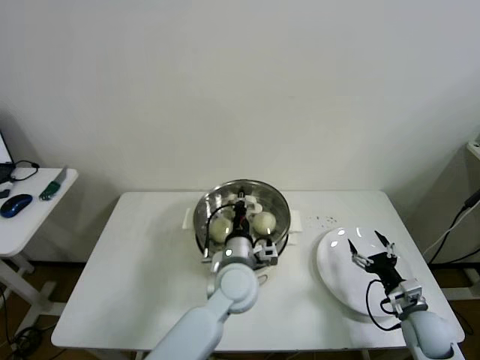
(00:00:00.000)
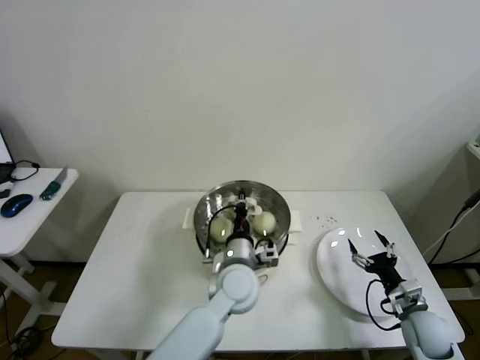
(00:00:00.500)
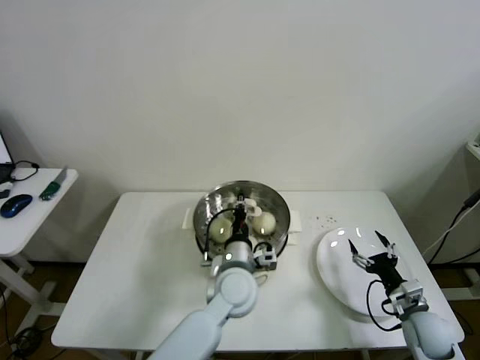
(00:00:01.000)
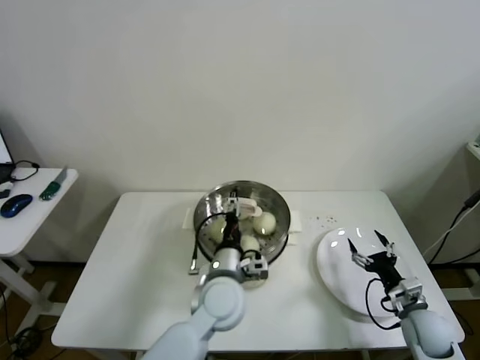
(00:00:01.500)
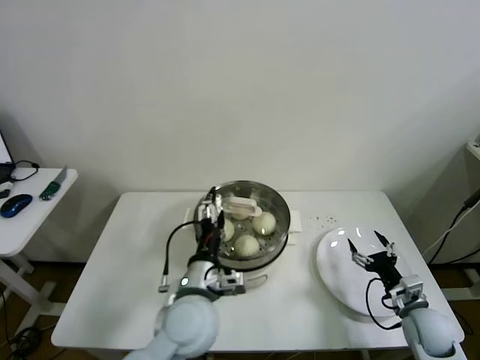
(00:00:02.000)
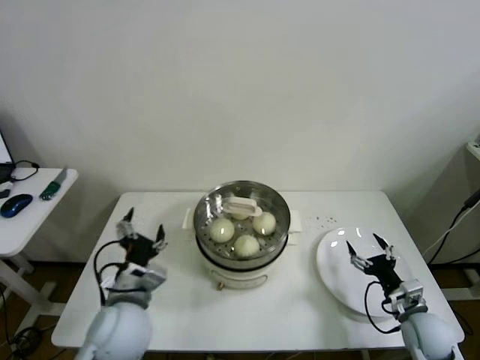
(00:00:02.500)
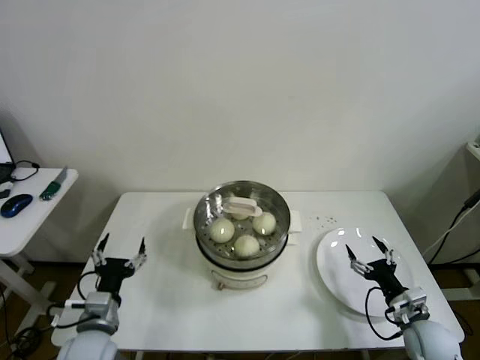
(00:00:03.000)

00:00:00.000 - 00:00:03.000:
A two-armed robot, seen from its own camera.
00:00:00.000 - 00:00:01.500: The left gripper opens up.
00:00:01.500 - 00:00:03.000: The left gripper moves to the left, some 25 cm.

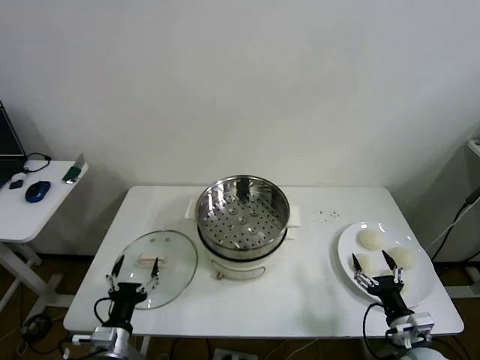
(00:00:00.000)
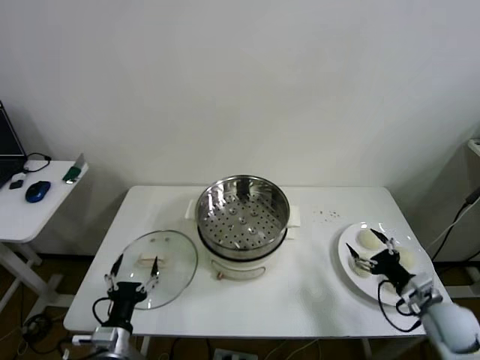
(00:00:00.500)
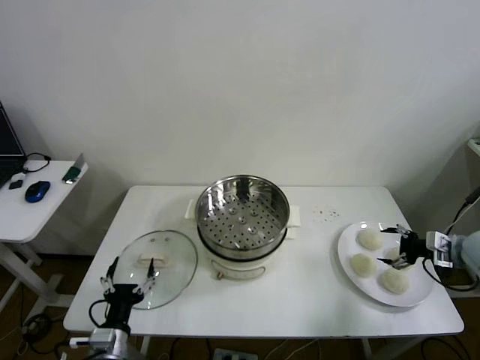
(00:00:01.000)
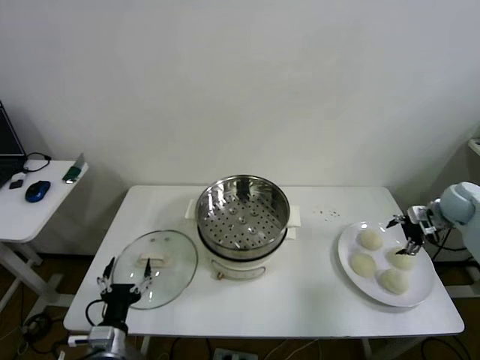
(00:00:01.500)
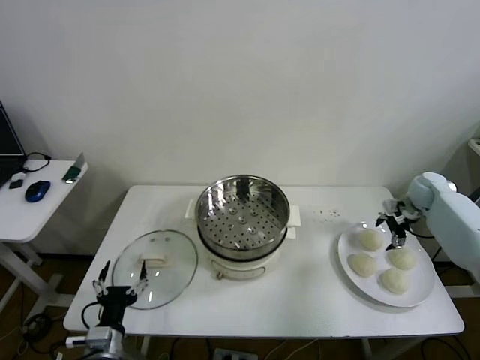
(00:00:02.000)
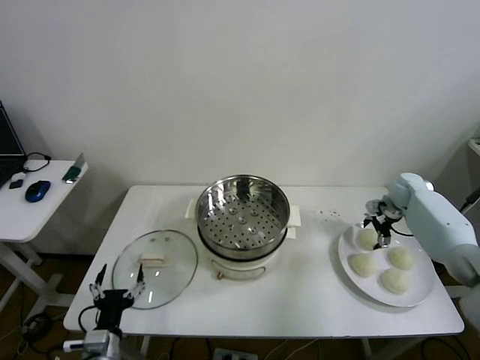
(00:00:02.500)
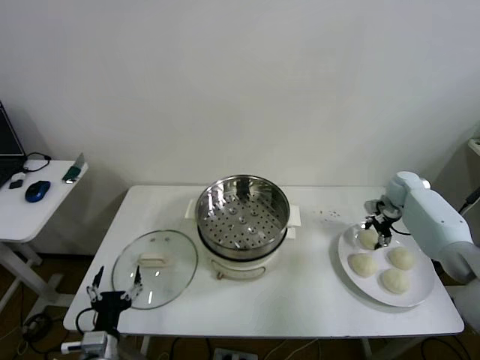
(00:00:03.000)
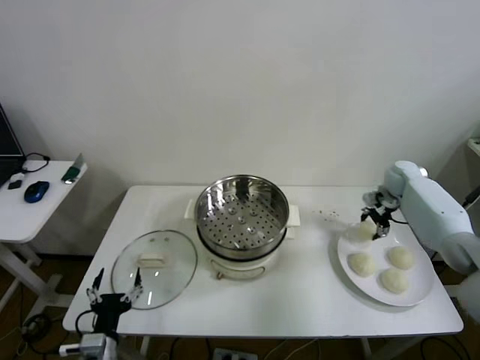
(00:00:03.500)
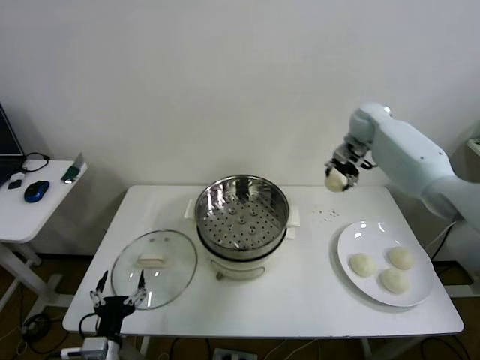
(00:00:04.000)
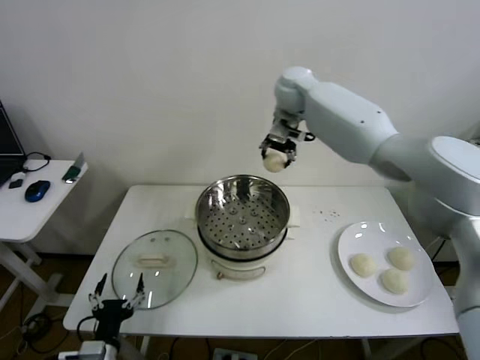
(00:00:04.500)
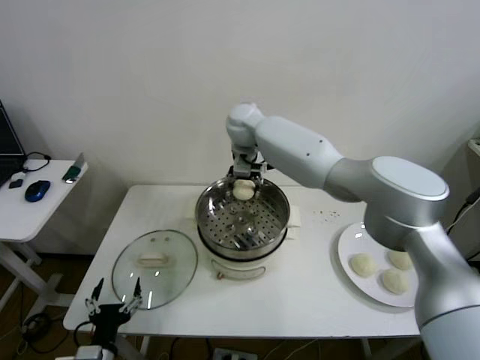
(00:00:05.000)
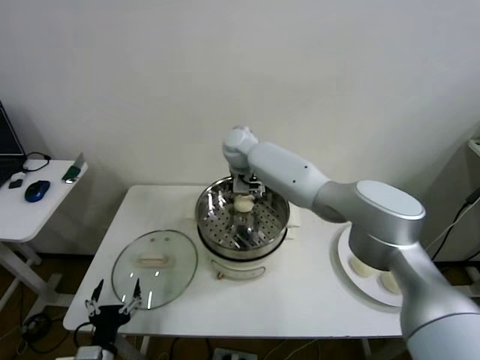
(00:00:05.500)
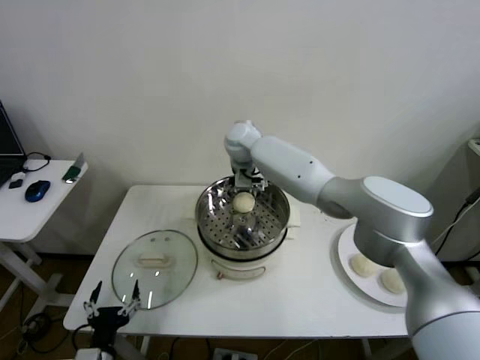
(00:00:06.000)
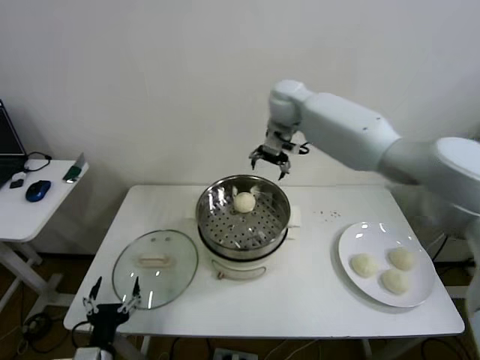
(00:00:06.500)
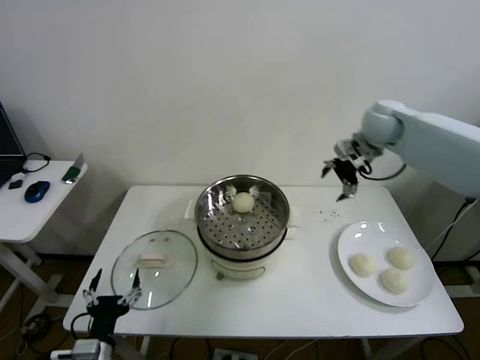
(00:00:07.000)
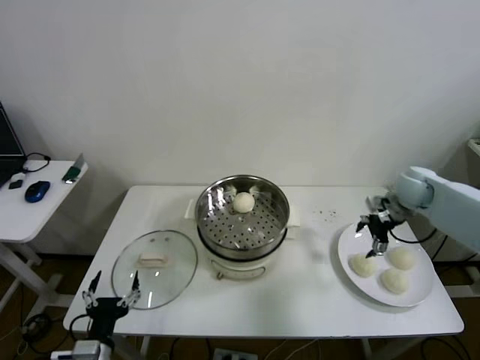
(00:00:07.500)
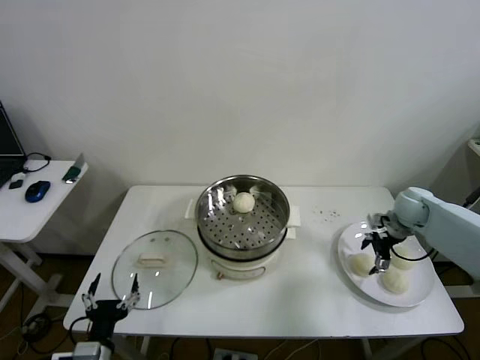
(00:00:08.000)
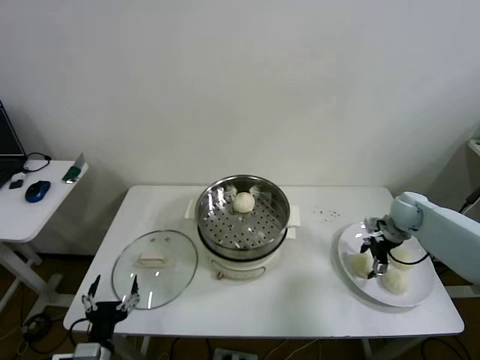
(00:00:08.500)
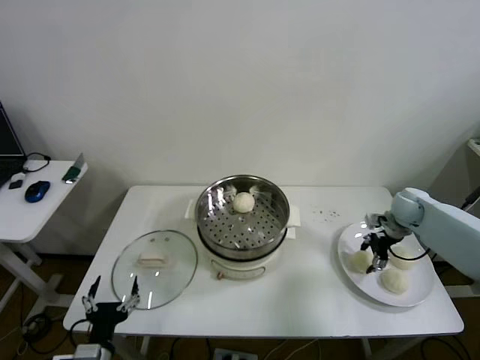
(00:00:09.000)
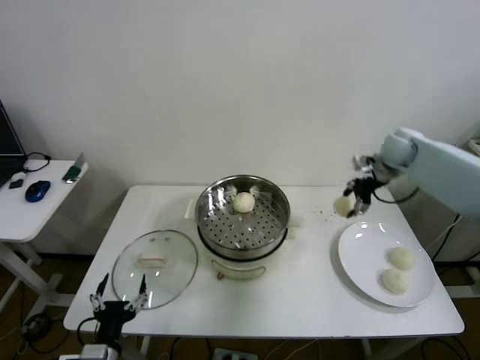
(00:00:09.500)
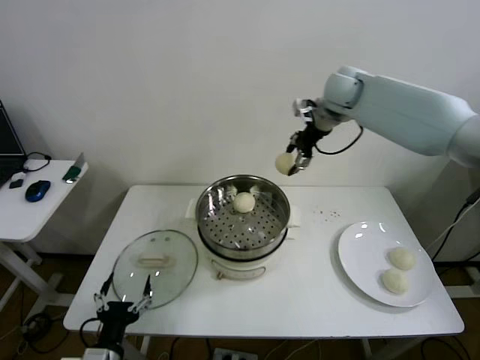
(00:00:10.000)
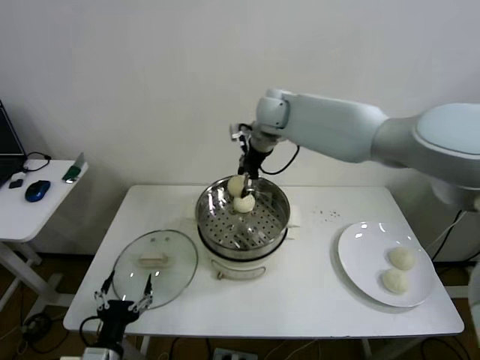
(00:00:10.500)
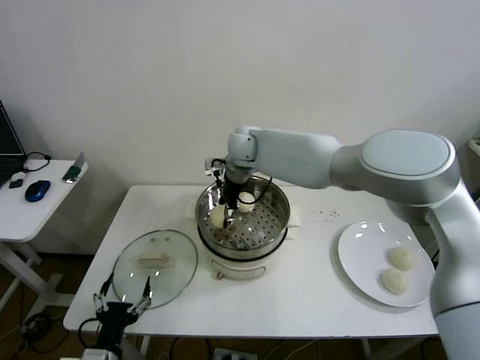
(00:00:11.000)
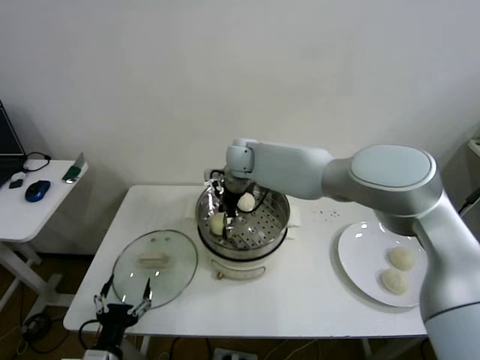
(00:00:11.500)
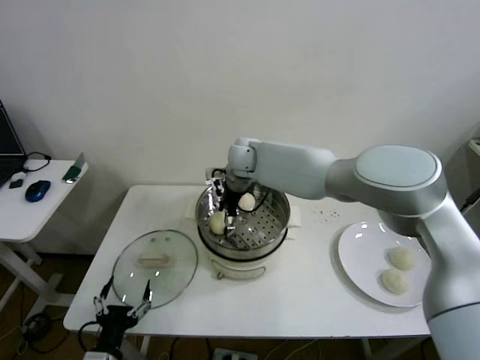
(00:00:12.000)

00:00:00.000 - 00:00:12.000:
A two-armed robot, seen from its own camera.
Step, 00:00:00.000 - 00:00:03.000: Grasp the baozi in the plate with right gripper.
Step, 00:00:03.500 - 00:00:05.500: Place the baozi on the steamer with right gripper.
Step, 00:00:06.000 - 00:00:08.500: Grasp the baozi in the plate with right gripper.
00:00:02.000 - 00:00:04.000: The right gripper is displaced to the left, upward and forward by about 30 cm, and closes its fingers.
00:00:04.000 - 00:00:06.000: The right gripper is displaced to the left by some 25 cm, and opens.
00:00:06.000 - 00:00:08.000: The right gripper moves to the right, roughly 40 cm.
00:00:08.000 - 00:00:10.000: The right gripper is displaced upward, to the left and forward by roughly 40 cm, and closes its fingers.
00:00:10.000 - 00:00:12.000: The right gripper goes approximately 25 cm to the left and downward, and opens its fingers.

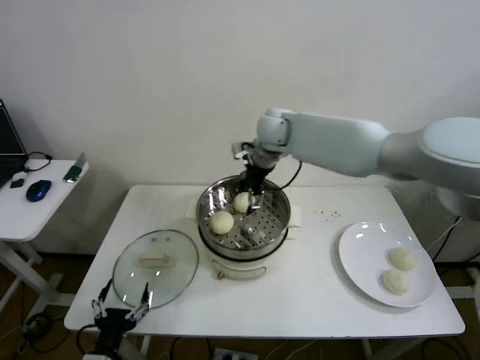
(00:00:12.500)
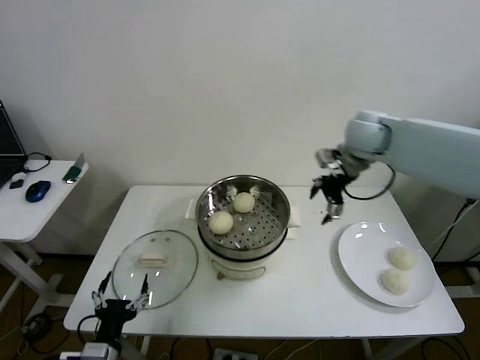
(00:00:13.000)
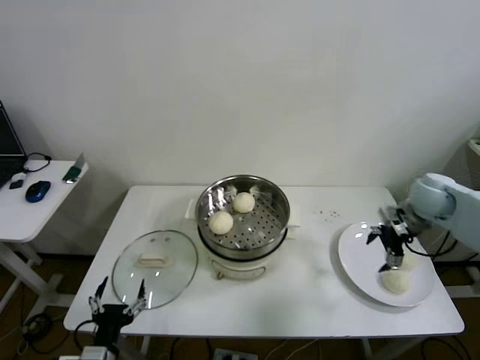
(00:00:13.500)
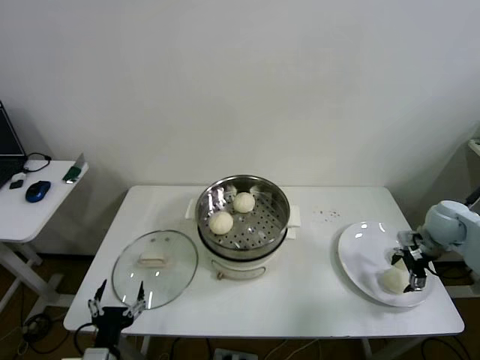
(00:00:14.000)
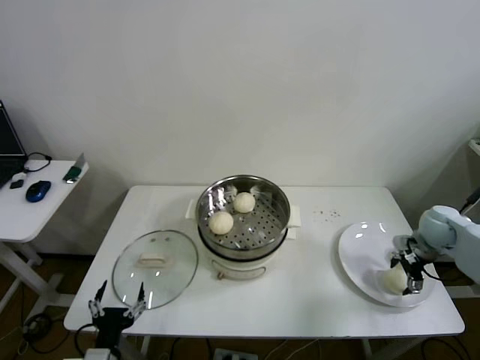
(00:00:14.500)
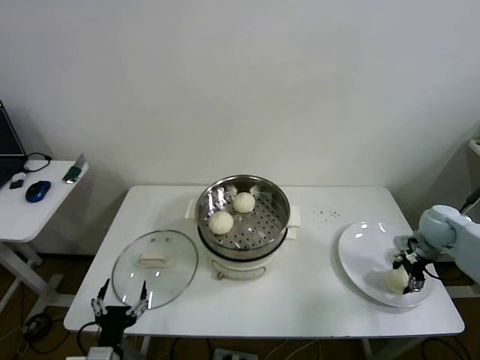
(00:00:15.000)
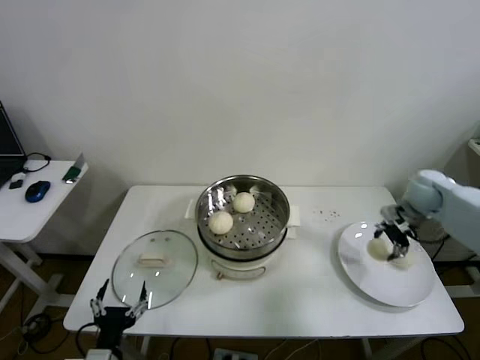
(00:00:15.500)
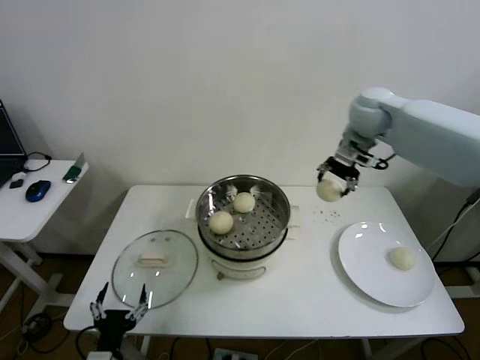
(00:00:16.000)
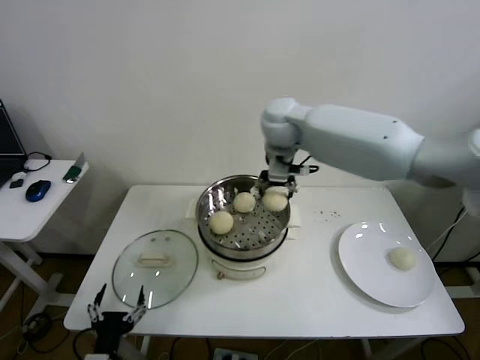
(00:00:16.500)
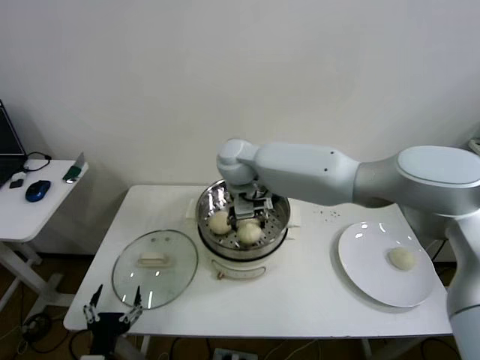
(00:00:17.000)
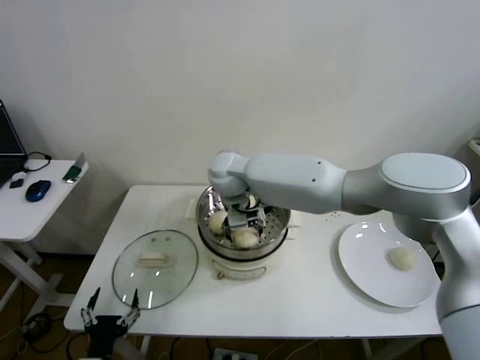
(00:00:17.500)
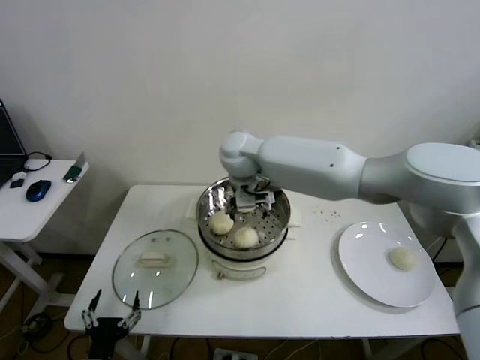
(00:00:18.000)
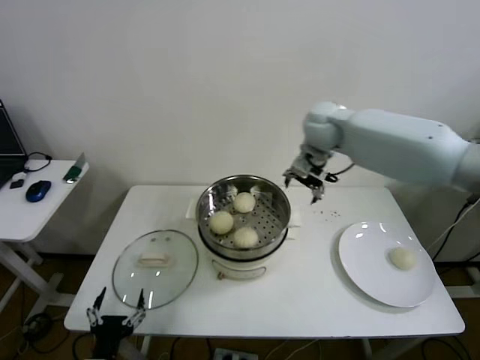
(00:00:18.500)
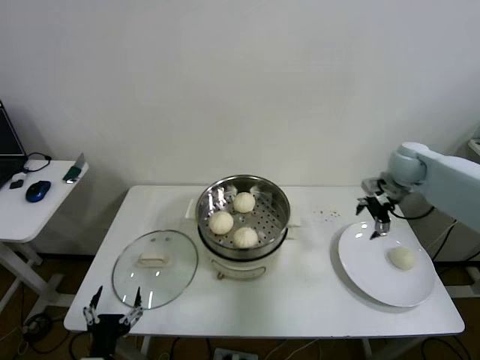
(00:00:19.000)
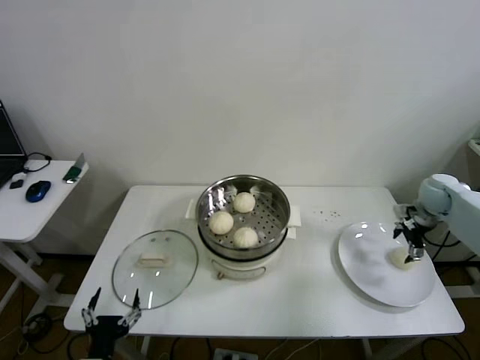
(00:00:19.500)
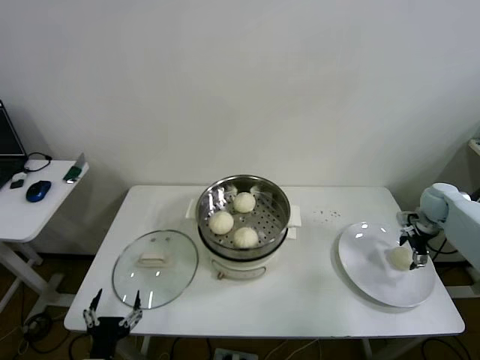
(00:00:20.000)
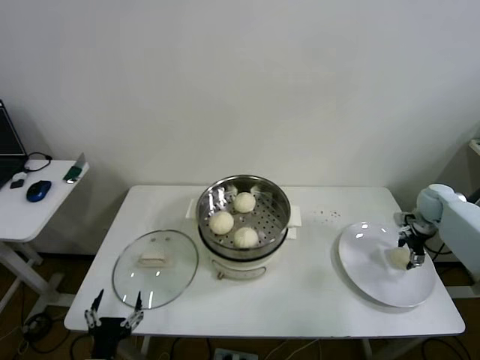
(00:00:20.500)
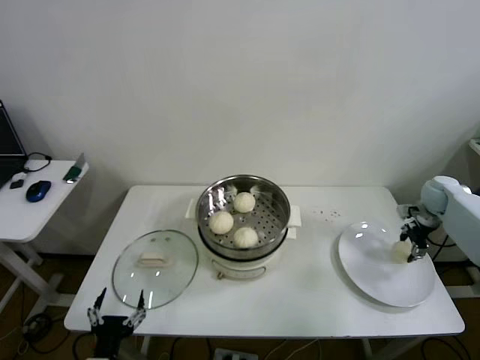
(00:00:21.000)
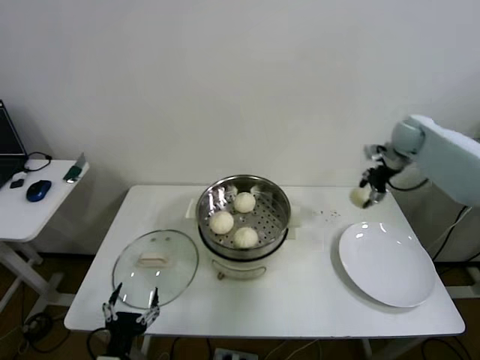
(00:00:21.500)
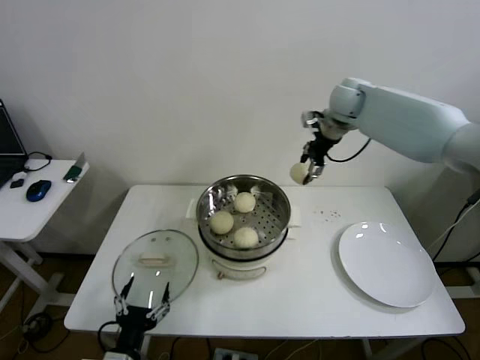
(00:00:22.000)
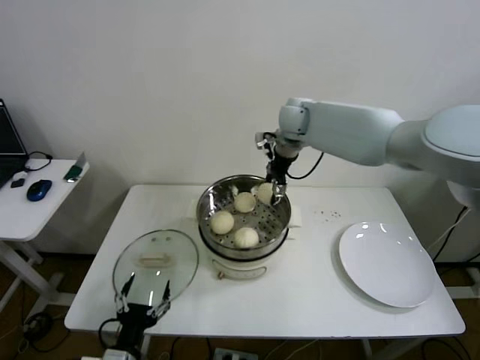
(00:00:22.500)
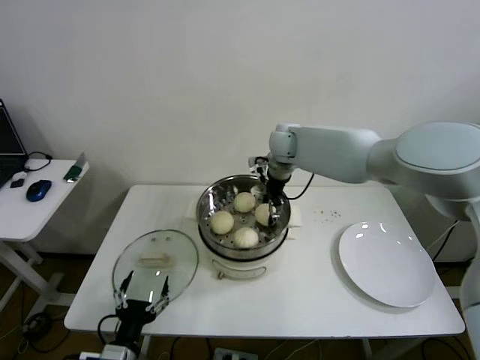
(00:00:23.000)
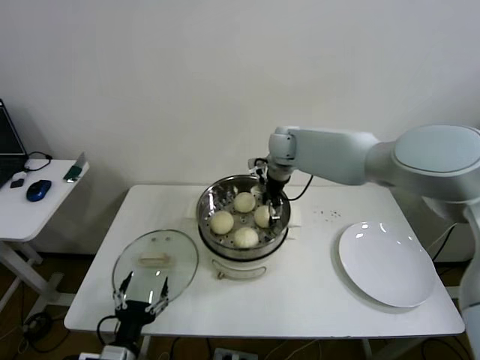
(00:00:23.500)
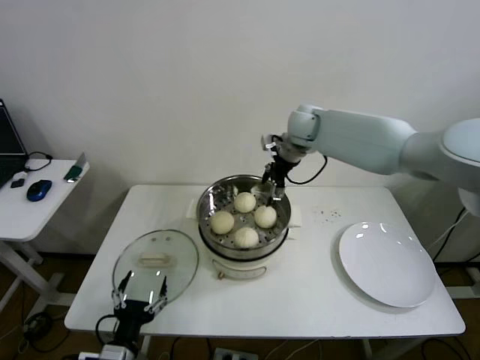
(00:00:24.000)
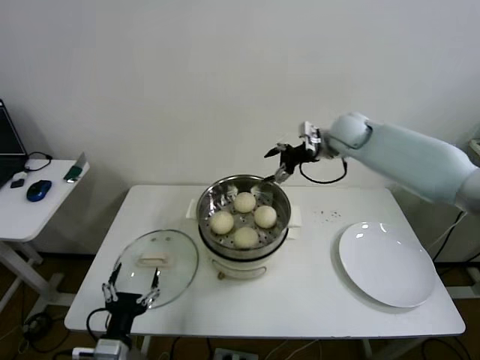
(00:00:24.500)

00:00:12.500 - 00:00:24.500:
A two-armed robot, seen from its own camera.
Step, 00:00:12.500 - 00:00:14.500: Grasp the baozi in the plate with right gripper.
Step, 00:00:15.000 - 00:00:17.500: Place the baozi on the steamer with right gripper.
Step, 00:00:18.000 - 00:00:20.500: Grasp the baozi in the plate with right gripper.
Step, 00:00:21.000 - 00:00:23.500: Place the baozi on the steamer with right gripper.
00:00:12.500 - 00:00:14.500: The right gripper heads to the right and downward, covering approximately 40 cm.
00:00:14.500 - 00:00:16.500: The right gripper heads to the left and upward, covering about 50 cm, and closes.
00:00:16.500 - 00:00:18.500: The right gripper travels to the right by approximately 10 cm, and opens its fingers.
00:00:18.500 - 00:00:20.500: The right gripper is displaced to the right and downward by roughly 40 cm, and closes its fingers.
00:00:20.500 - 00:00:22.500: The right gripper heads to the left and upward, covering about 40 cm.
00:00:22.500 - 00:00:24.500: The right gripper shifts approximately 10 cm to the right, and opens.
